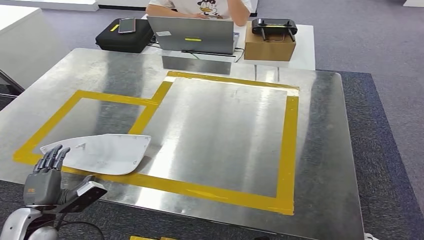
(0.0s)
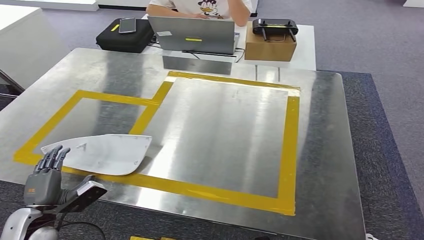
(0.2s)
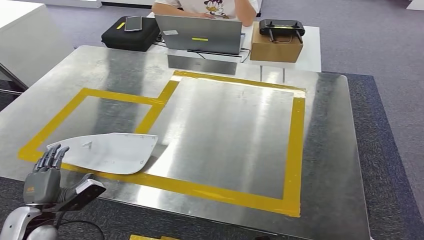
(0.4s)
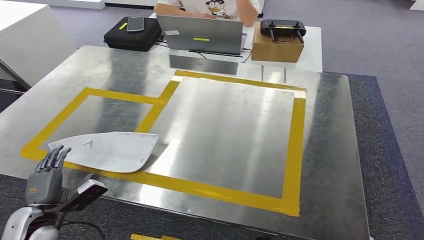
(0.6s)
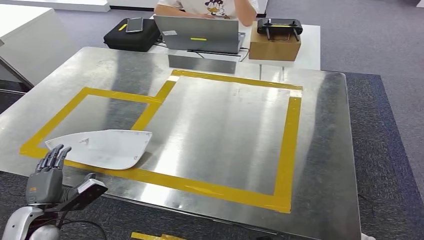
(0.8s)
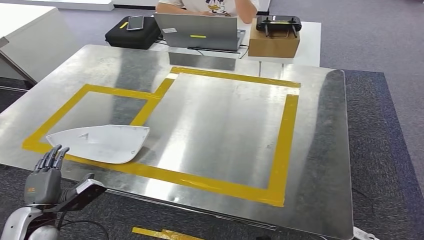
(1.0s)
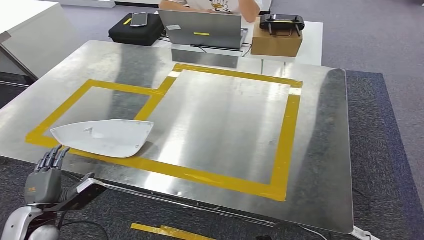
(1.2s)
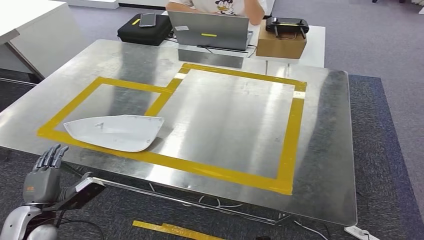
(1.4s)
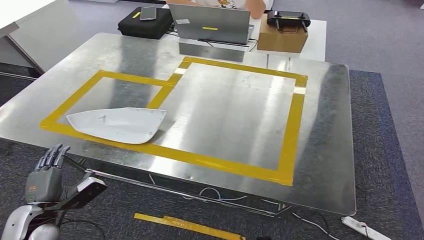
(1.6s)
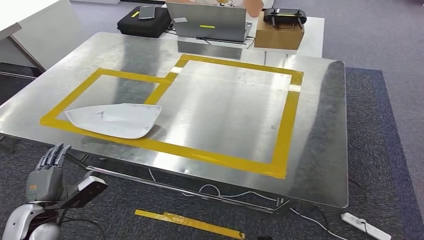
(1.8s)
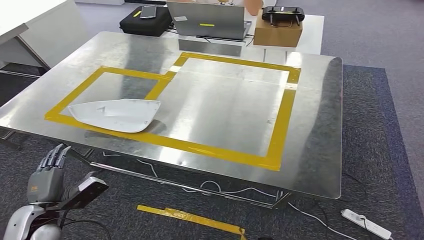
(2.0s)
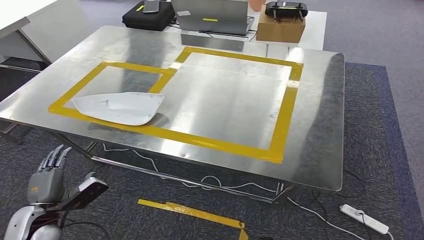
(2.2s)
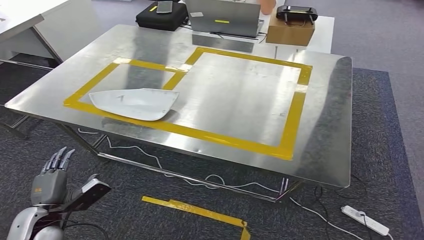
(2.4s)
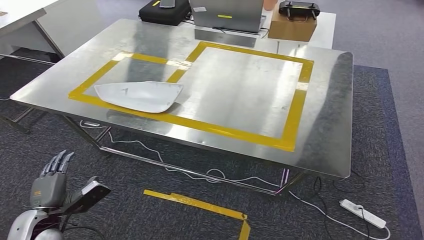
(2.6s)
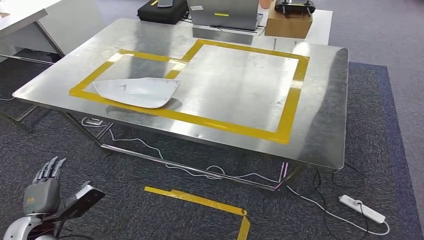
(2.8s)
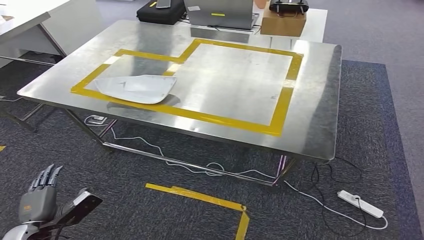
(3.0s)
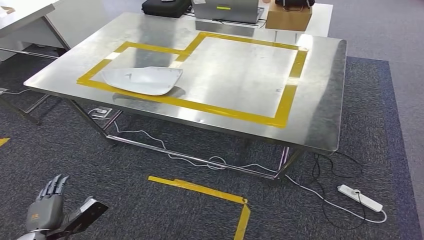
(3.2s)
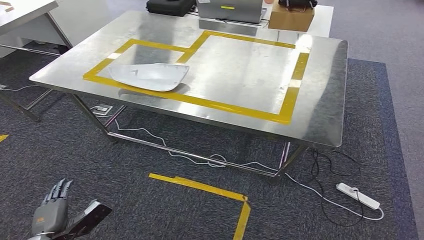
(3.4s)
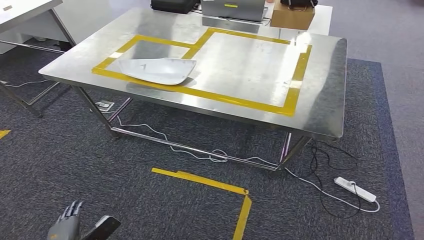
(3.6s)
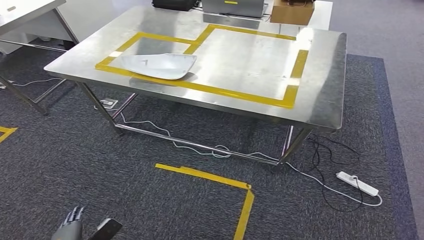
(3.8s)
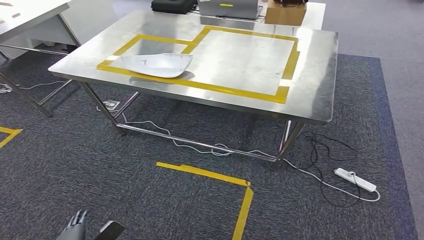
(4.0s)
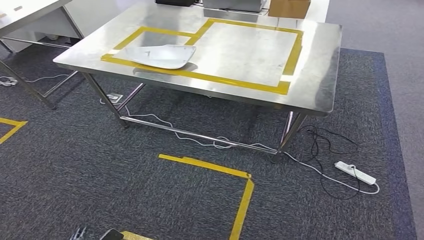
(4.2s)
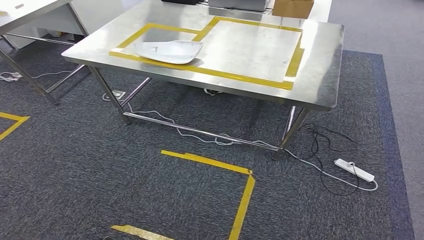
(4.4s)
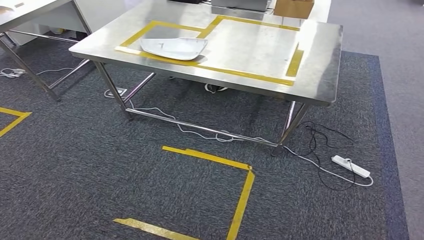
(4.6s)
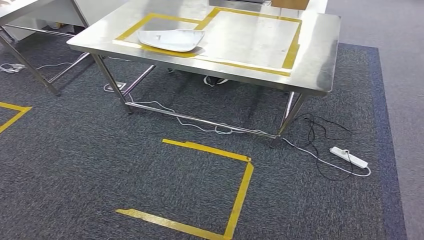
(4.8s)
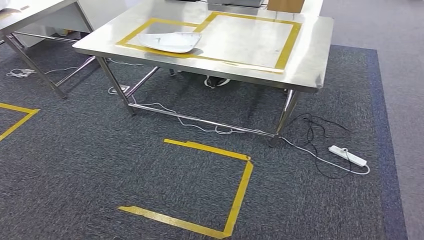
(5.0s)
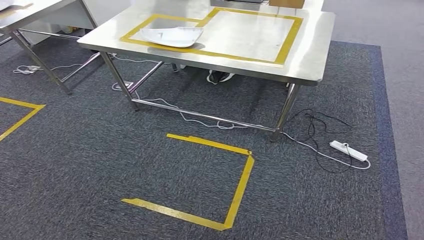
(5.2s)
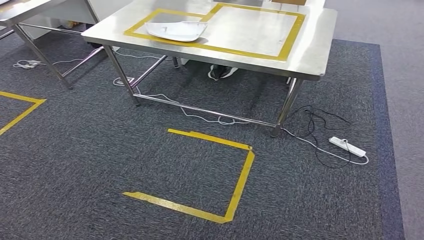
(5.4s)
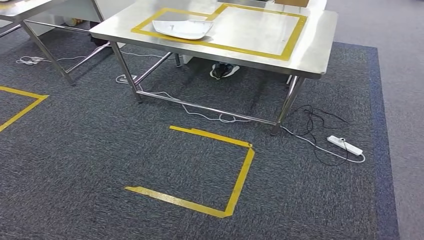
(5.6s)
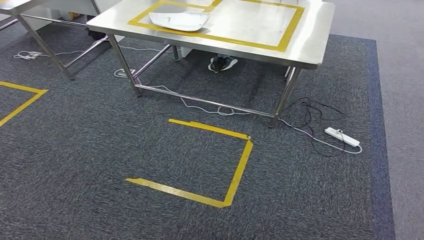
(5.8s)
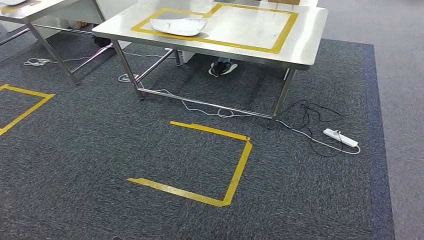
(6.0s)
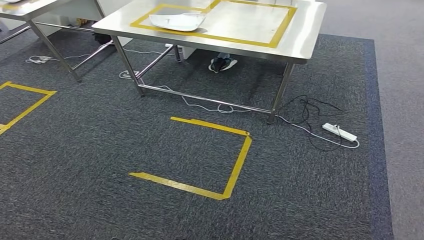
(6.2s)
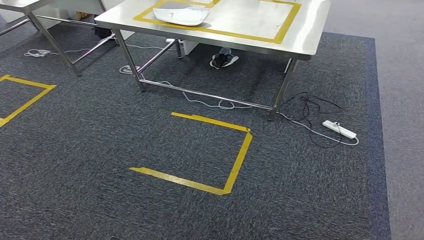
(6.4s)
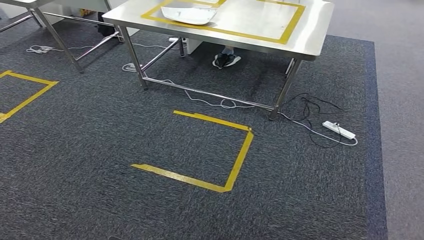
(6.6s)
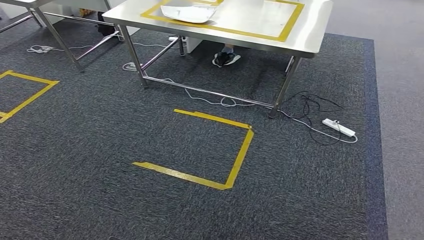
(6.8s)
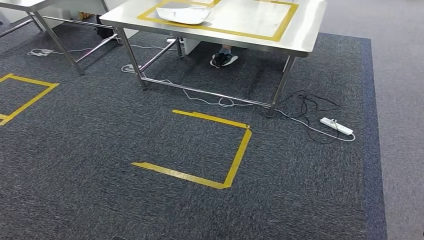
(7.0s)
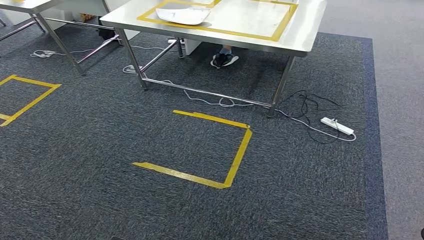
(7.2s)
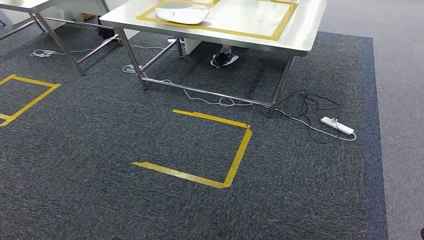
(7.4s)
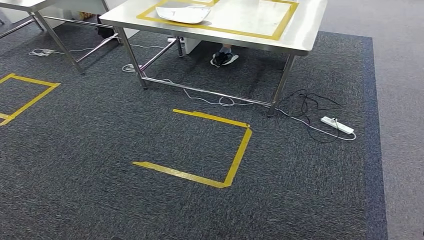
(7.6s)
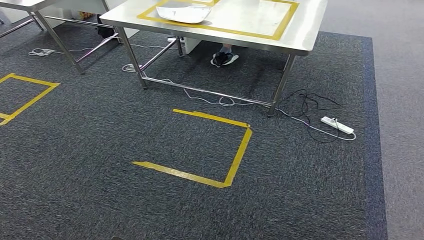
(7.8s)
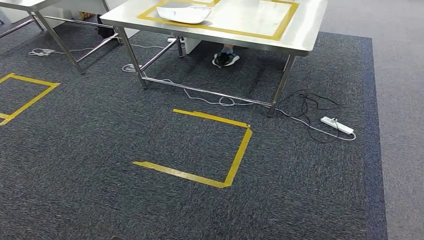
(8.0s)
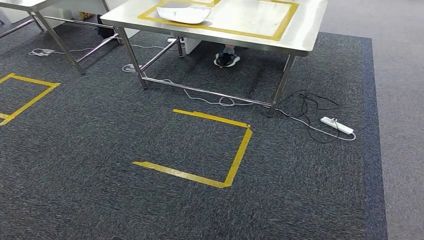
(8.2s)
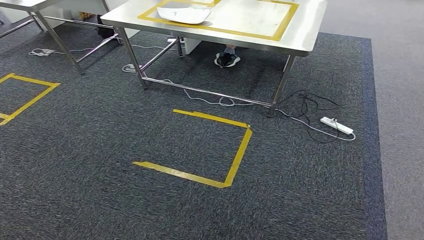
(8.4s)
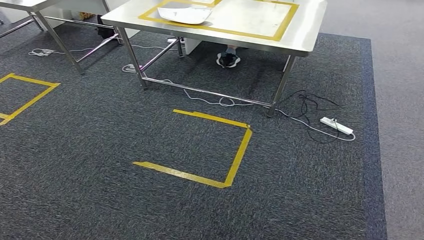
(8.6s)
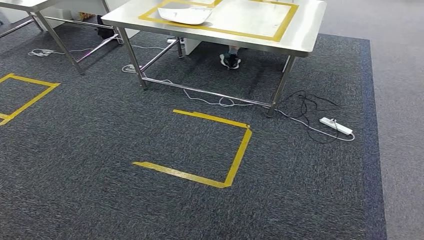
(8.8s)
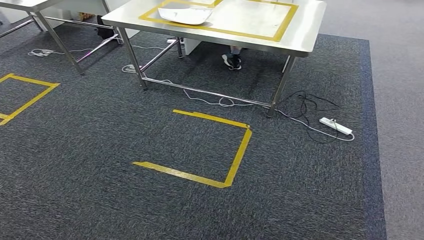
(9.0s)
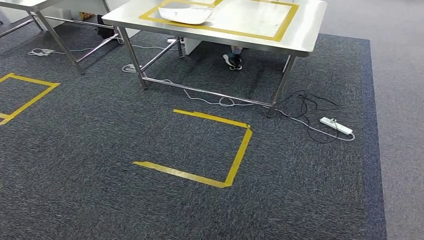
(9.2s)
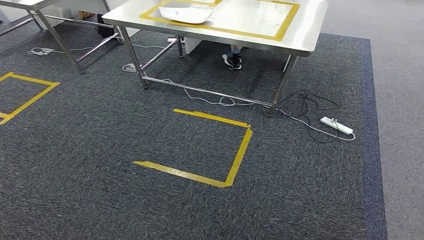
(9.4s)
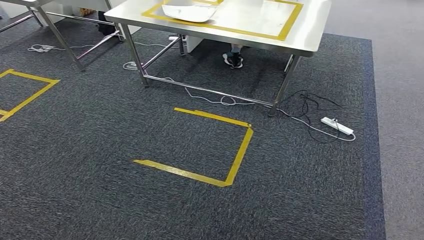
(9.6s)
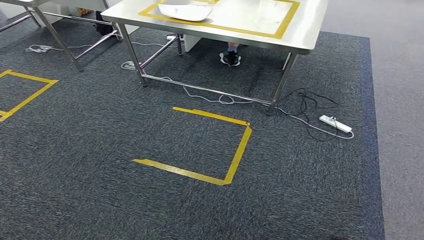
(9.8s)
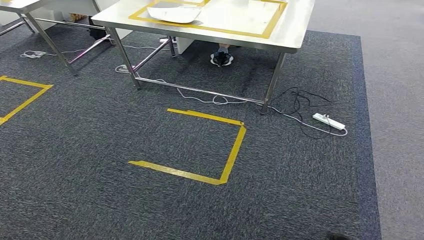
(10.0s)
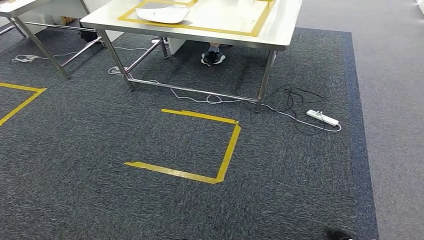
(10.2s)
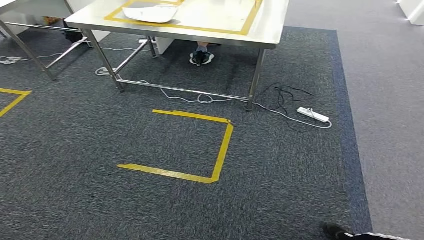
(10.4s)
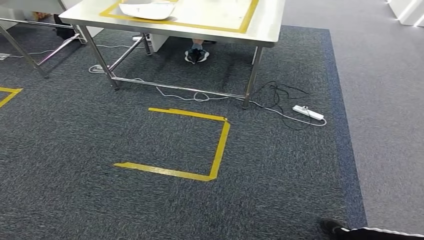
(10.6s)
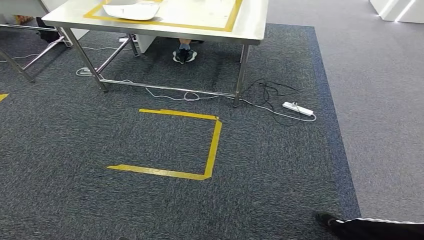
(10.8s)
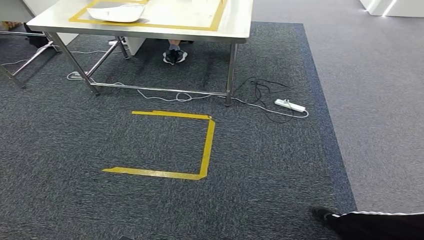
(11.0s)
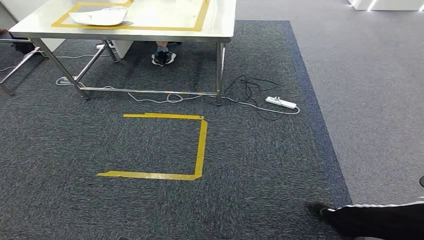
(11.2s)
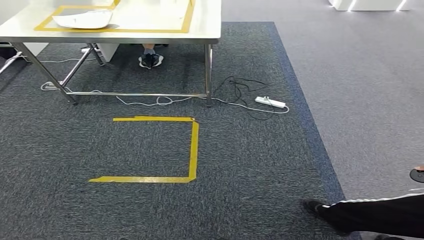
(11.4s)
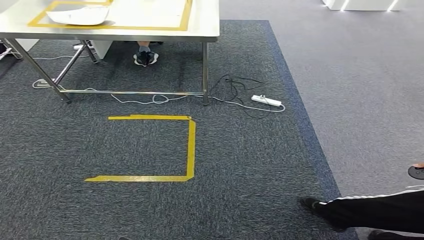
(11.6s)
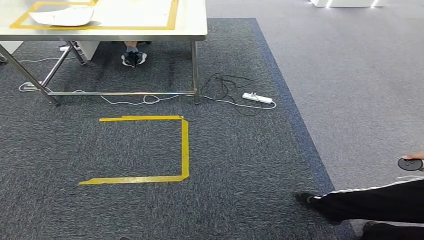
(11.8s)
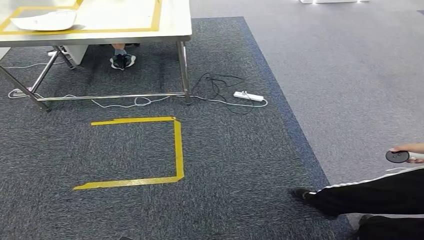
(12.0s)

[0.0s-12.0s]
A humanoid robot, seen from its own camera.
Step, 0.0s to 6.2s: Insert the small component into the corresponding slot on the workbench.
7.6s to 9.0s: Neither hand changes place.

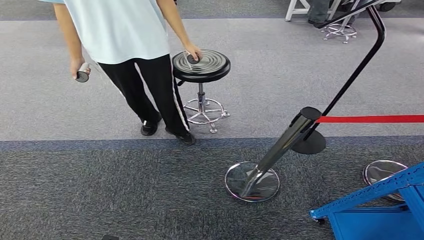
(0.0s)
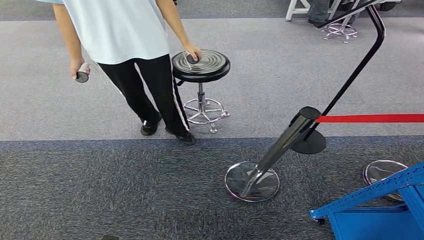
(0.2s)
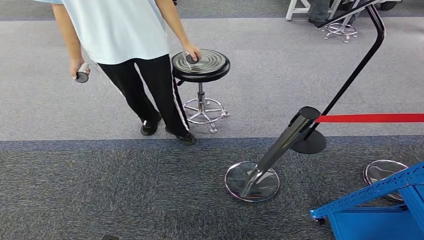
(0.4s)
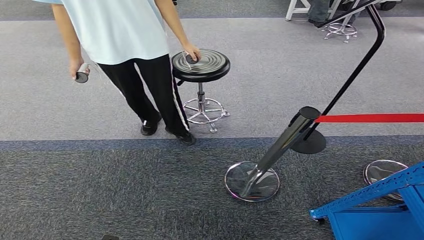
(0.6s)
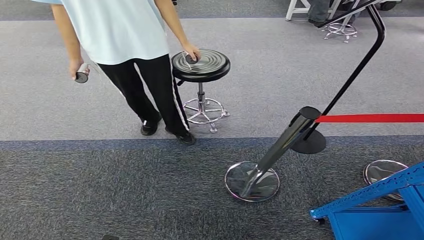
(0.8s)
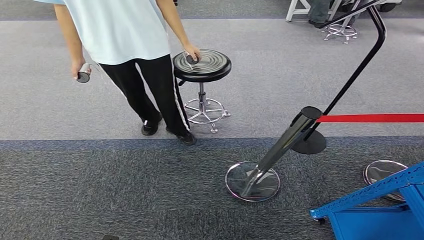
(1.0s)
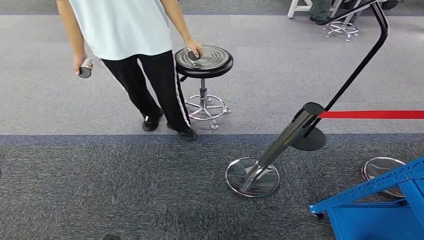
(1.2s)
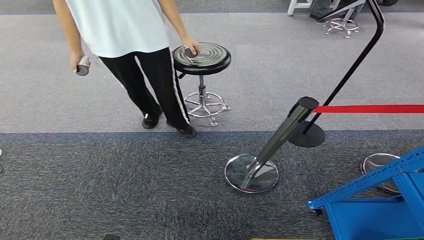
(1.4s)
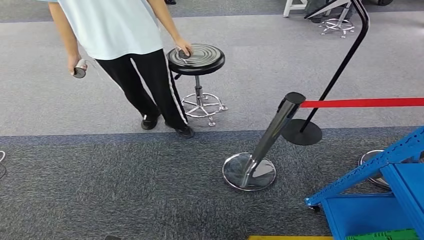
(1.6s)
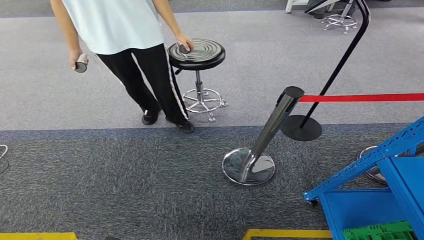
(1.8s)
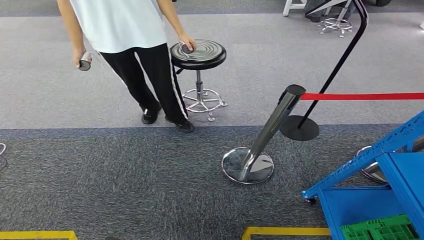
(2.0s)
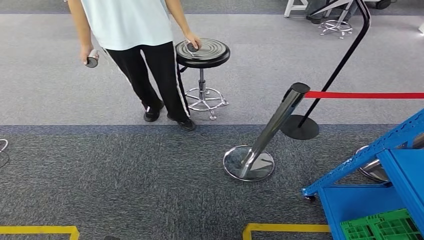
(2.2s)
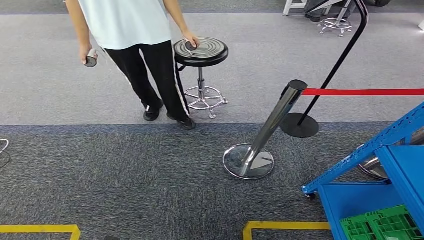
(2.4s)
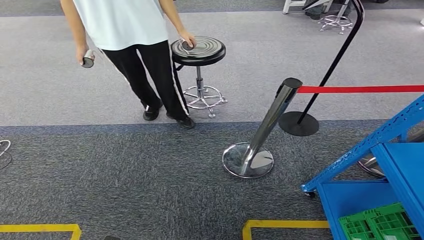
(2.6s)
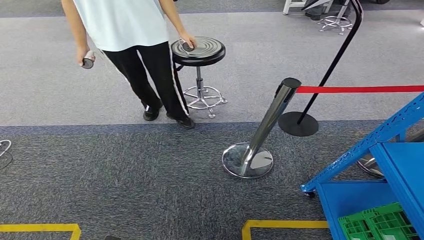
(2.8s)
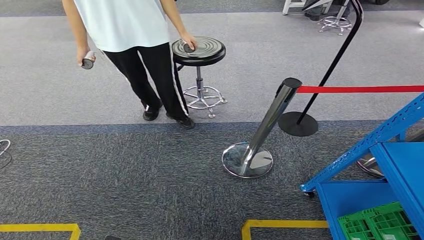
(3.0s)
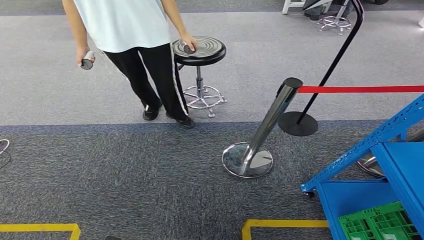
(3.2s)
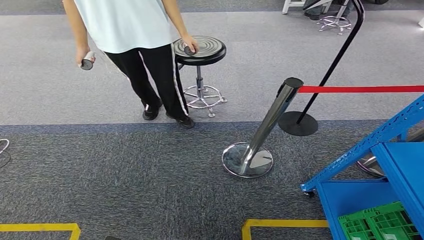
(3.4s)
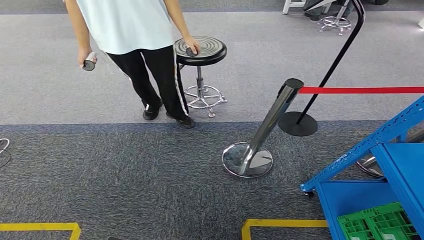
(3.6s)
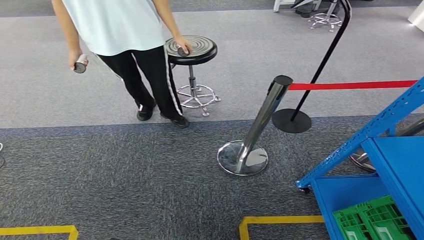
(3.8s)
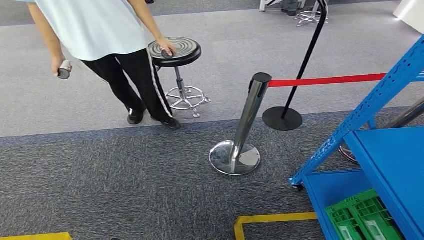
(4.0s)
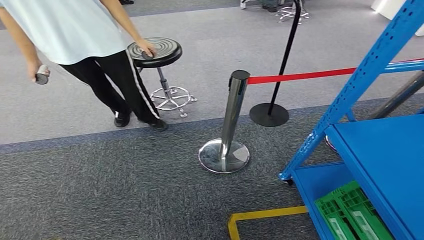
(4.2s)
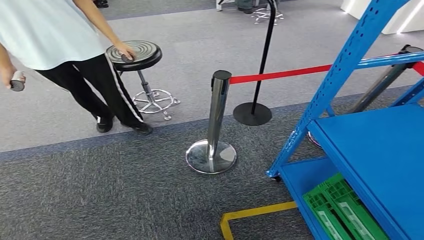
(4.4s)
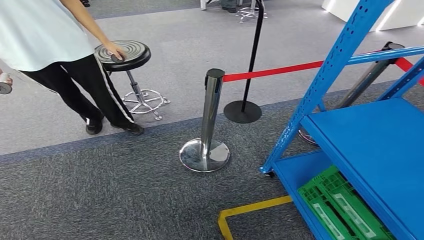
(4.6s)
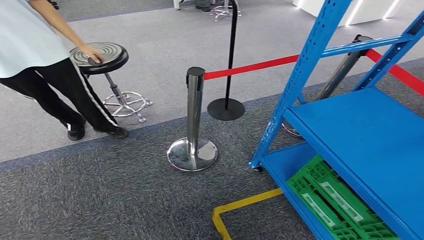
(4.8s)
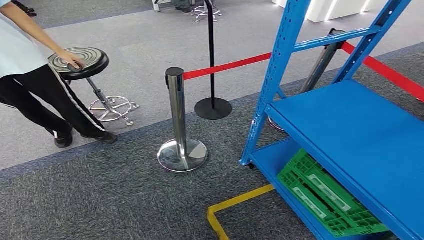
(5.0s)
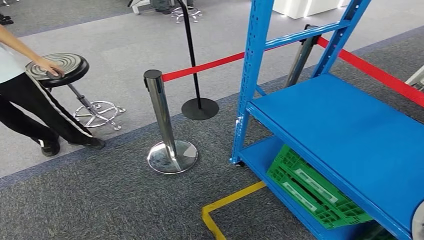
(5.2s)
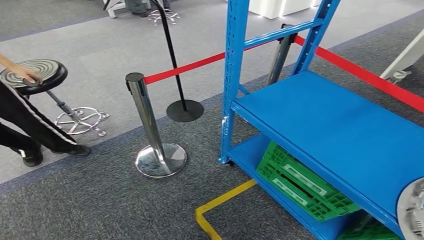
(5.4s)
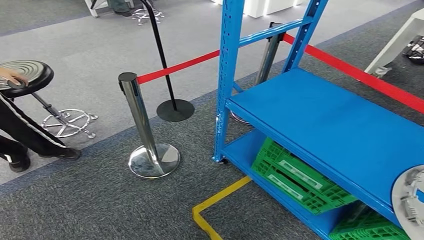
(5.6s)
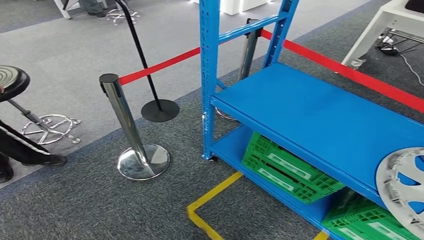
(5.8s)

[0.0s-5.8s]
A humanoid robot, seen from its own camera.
0.0s to 1.4s: The two hands keep their place.
